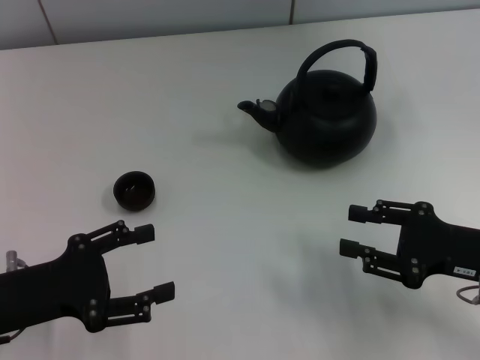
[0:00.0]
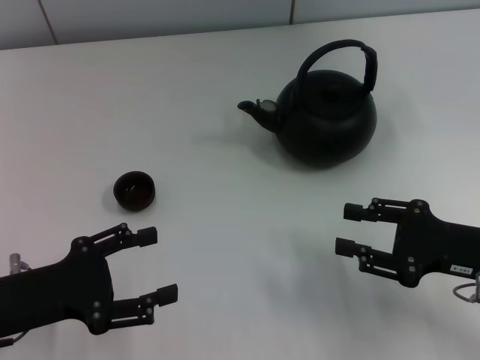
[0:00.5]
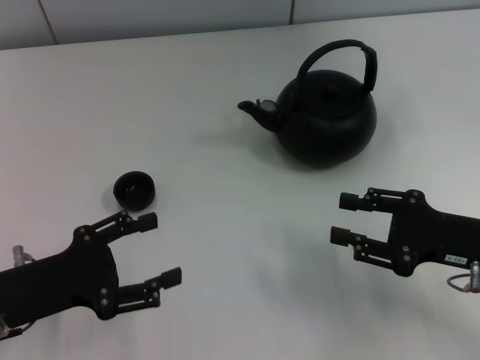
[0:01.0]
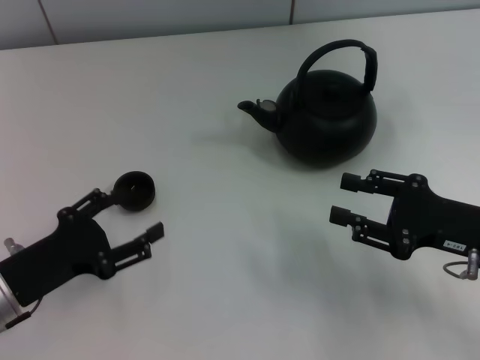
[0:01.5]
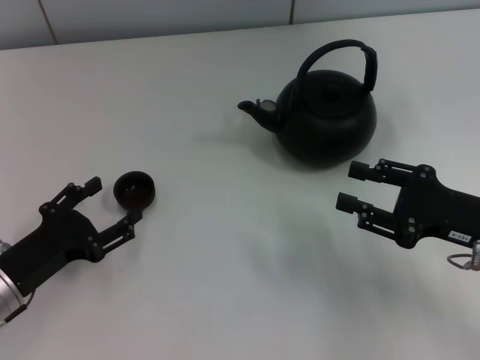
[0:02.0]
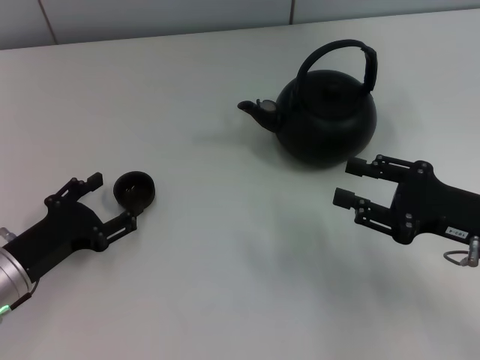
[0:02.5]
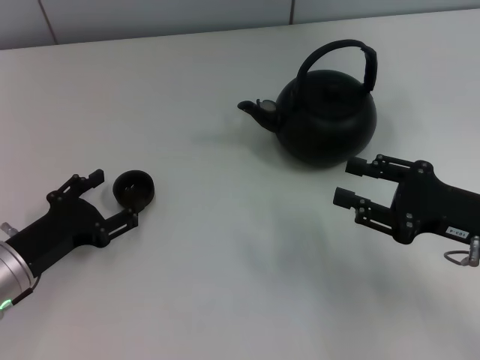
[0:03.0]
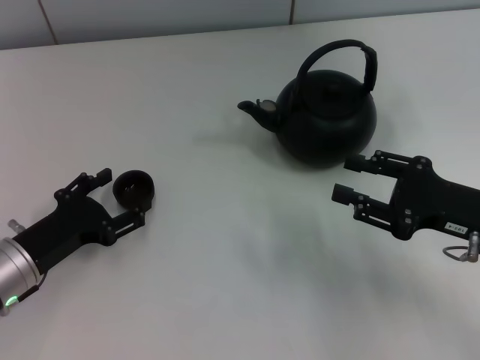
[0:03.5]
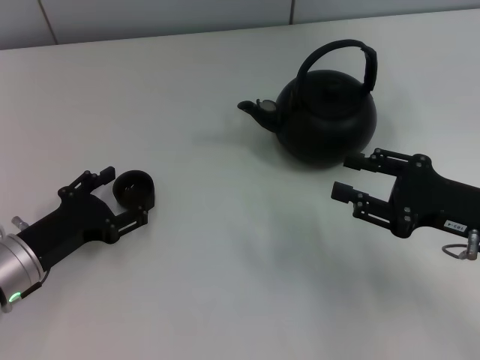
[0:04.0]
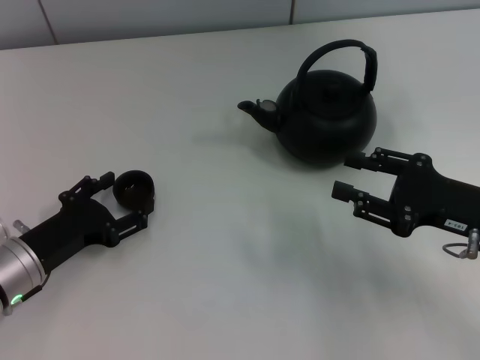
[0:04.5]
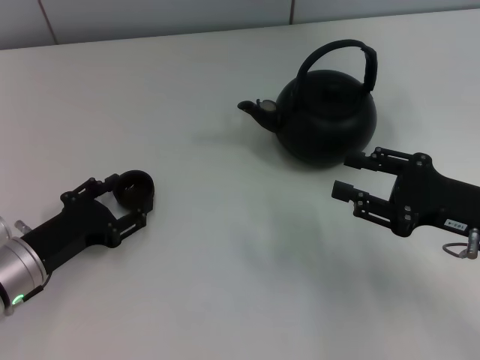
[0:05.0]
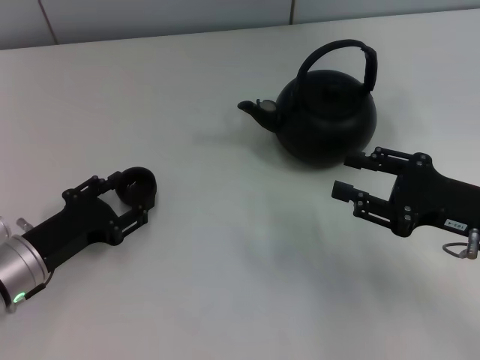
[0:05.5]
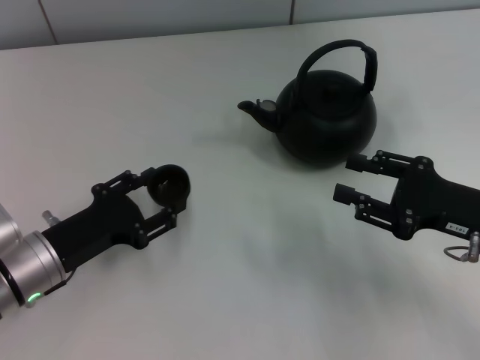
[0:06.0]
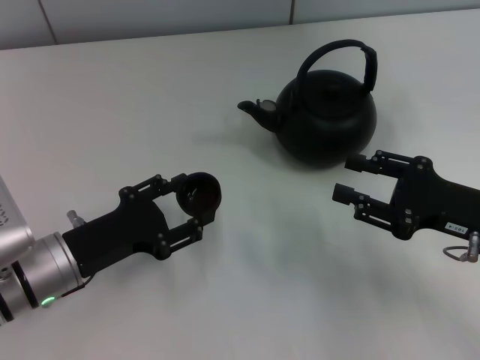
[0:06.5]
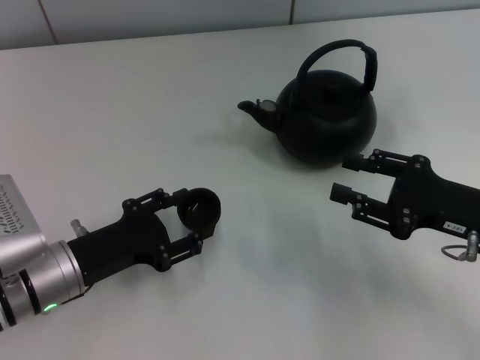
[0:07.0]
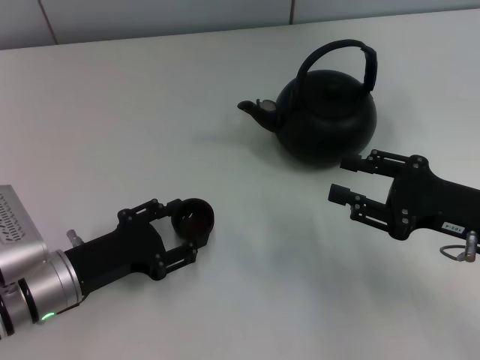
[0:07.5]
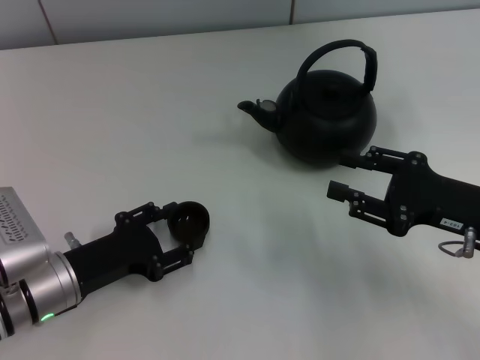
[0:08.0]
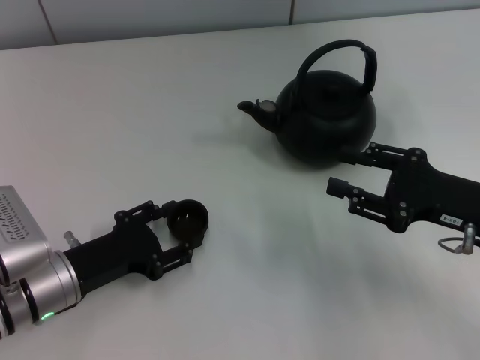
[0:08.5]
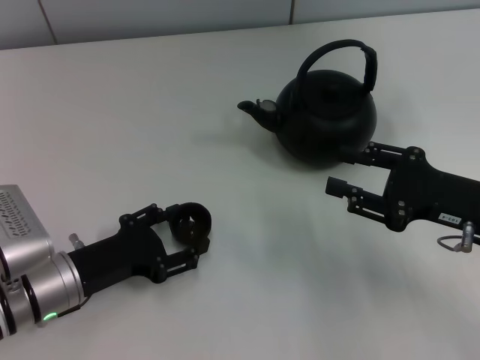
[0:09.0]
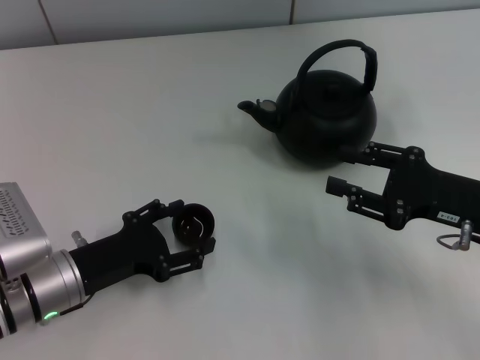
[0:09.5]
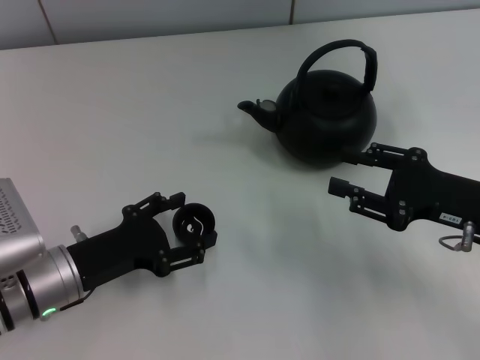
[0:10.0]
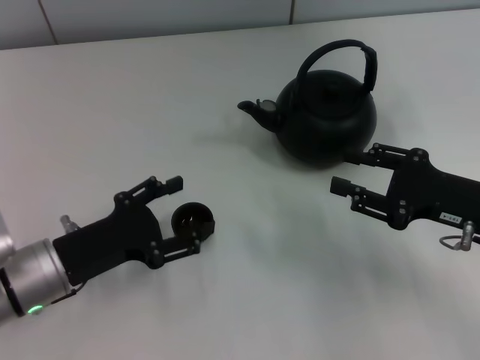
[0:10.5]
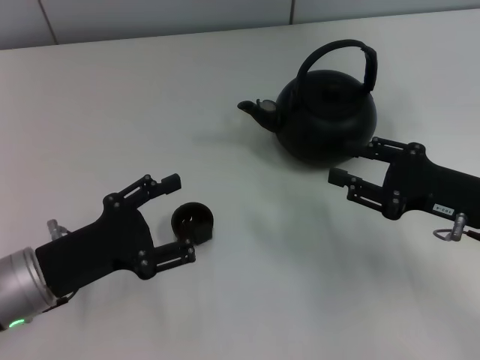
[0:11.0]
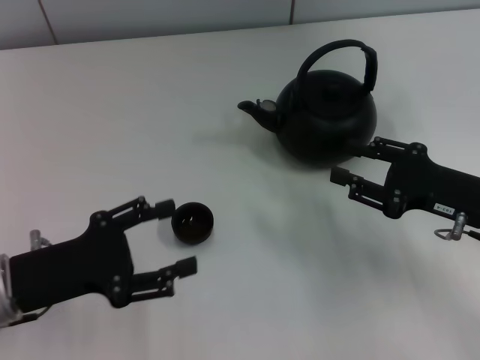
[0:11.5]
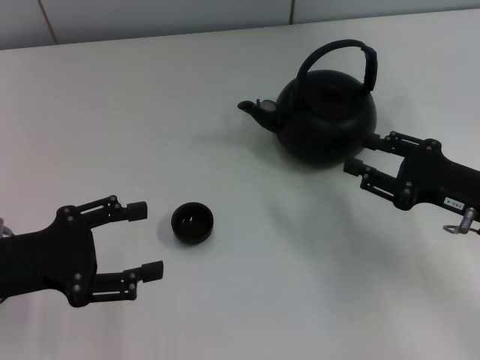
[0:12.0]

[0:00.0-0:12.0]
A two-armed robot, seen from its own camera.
Task of the whole recording: Grasp the handle of the teapot with one hand and pour tea into the teacup.
Step, 0:00.0 to 0:06.0: Pick up the teacup with the left gripper.
Step, 0:06.5 to 0:09.5: Place the teacup in the center of view with the left gripper.
0:00.0 to 0:02.0: The left gripper shifts approximately 5 cm downward.
0:02.0 to 0:04.0: The grippers stay close to where they were, moving slightly.
0:04.0 to 0:06.0: The left gripper closes its fingers.
0:06.0 to 0:08.0: There are only small adjustments of the grippers.
0:08.0 to 0:10.0: The left gripper opens up.
0:10.0 to 0:12.0: The left gripper moves upward and to the left, roughly 10 cm.

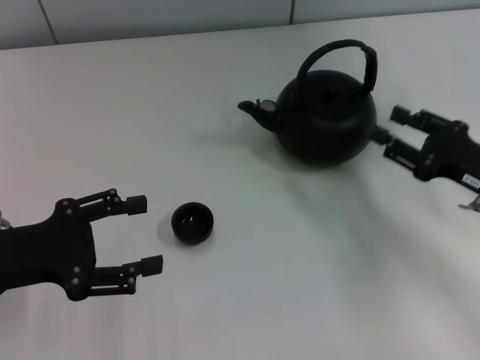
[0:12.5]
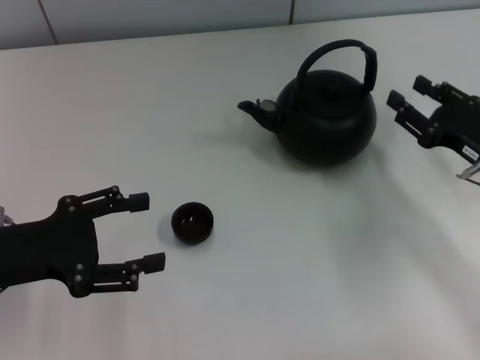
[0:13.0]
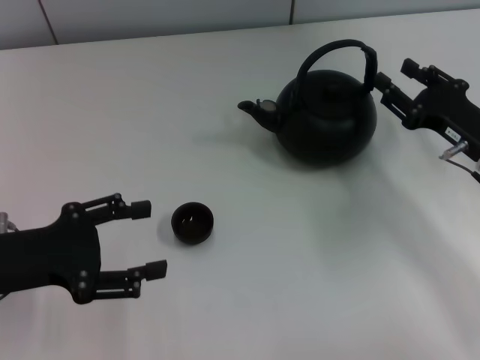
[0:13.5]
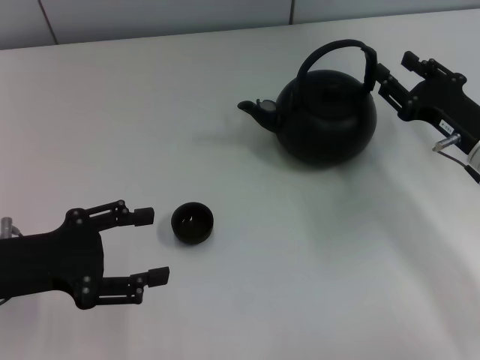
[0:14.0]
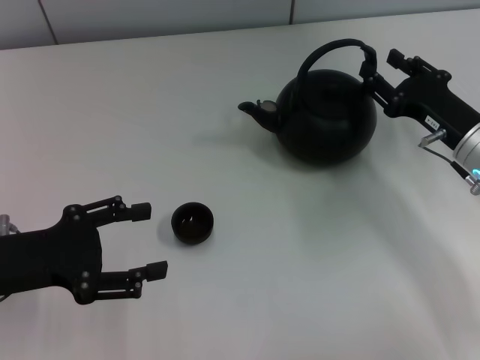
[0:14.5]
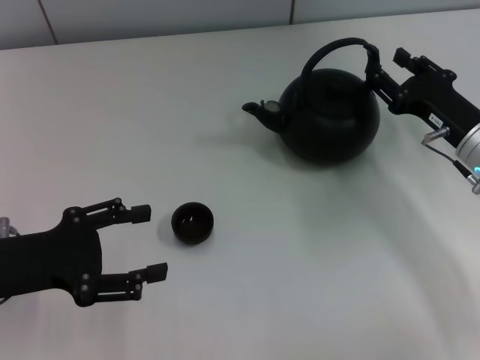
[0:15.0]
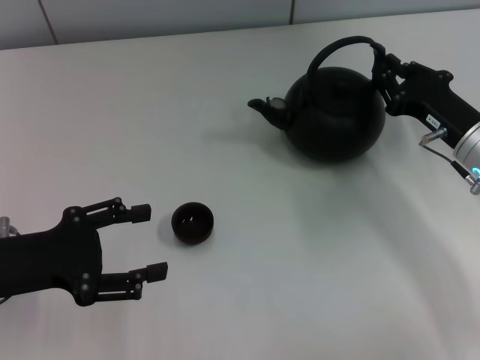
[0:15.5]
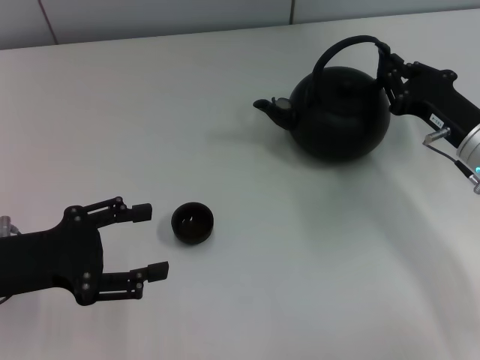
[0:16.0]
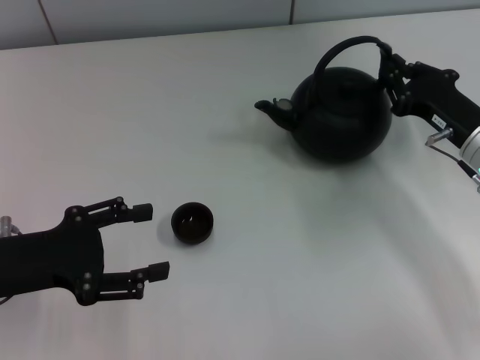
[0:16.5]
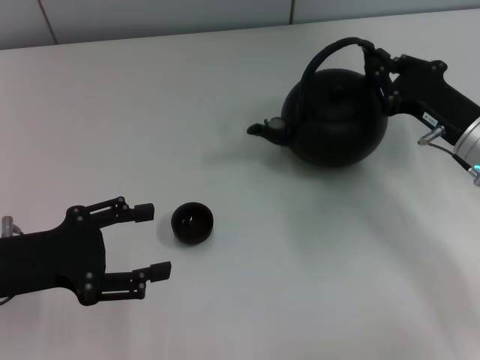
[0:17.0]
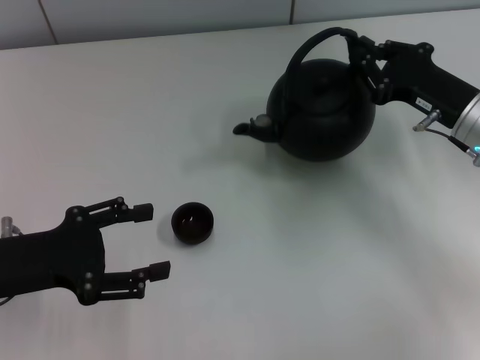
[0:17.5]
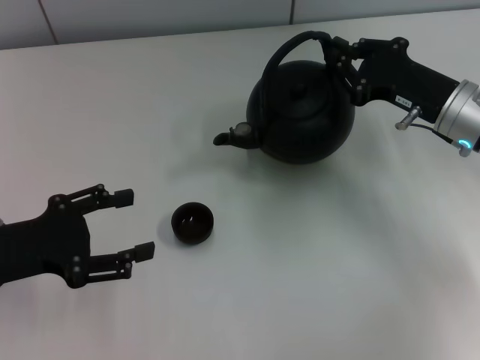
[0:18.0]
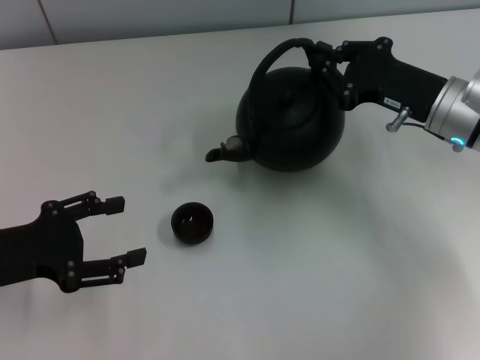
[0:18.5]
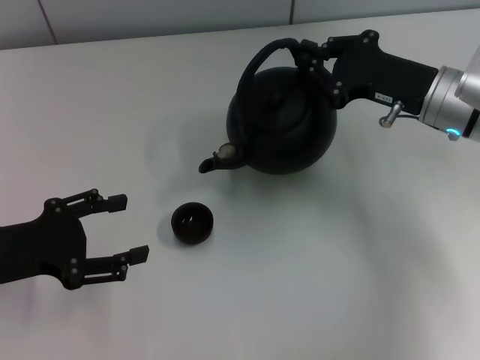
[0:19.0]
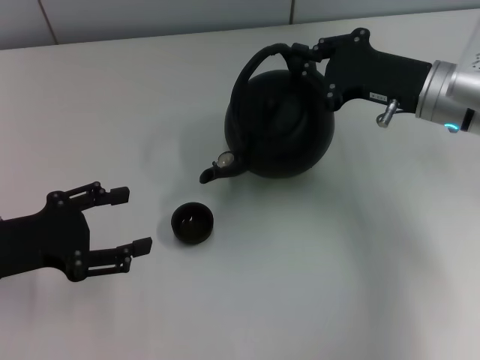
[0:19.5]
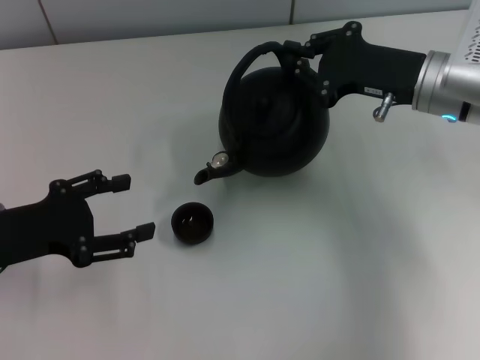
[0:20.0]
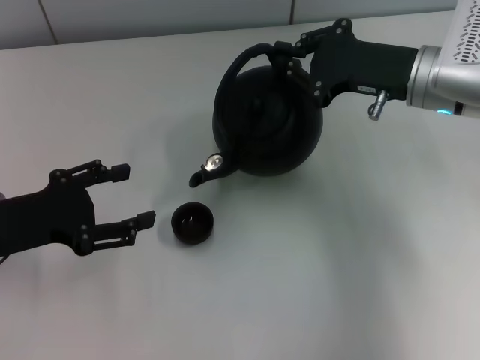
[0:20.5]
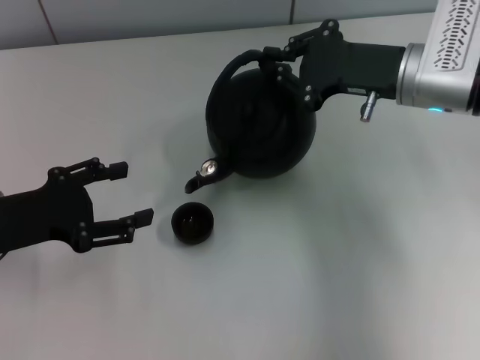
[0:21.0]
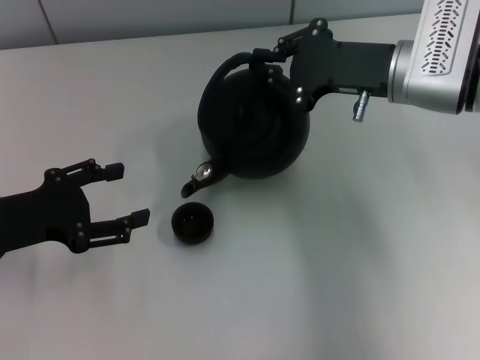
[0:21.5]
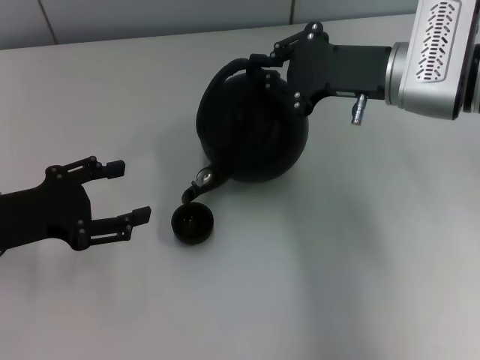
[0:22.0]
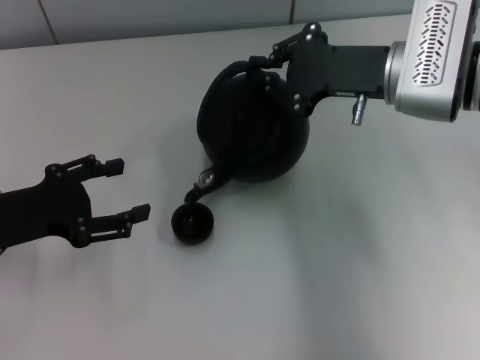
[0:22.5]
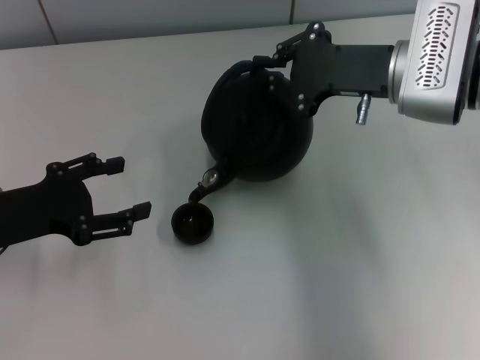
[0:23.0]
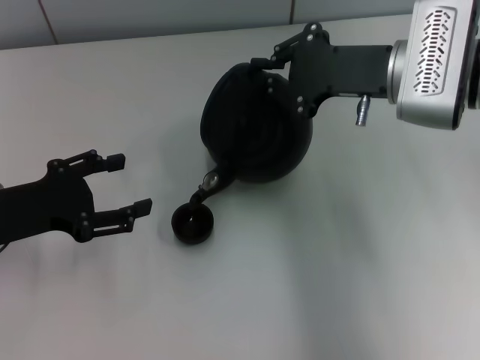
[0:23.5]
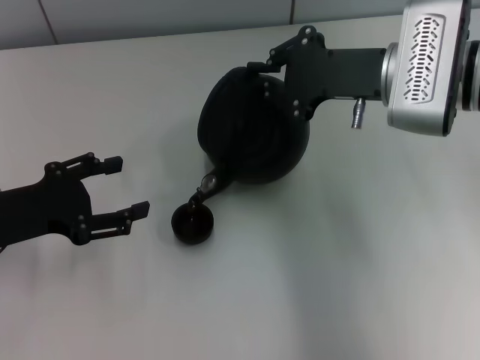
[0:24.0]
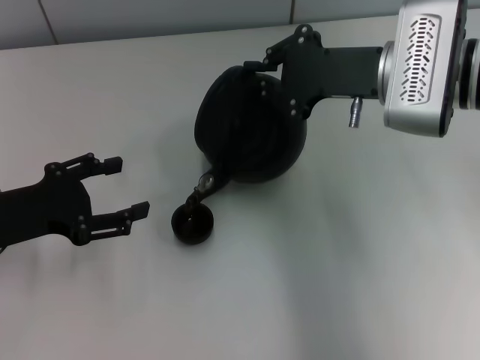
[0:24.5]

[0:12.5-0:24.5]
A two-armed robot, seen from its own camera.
Task of the whole recording: Grasp the handle of the teapot with one hand and pour tea into the teacup.
Step, 0:12.5 to 0:18.5: Pick up the teapot with the right gripper.
0:12.5 to 0:14.5: The right gripper moves forward, some 5 cm.
0:14.5 to 0:16.5: The right gripper closes its fingers.
0:16.5 to 0:18.5: The right gripper ends up about 5 cm from where it was.
0:18.5 to 0:20.5: The right gripper ends up roughly 5 cm from where it was.
0:20.5 to 0:22.5: The grippers stay close to where they were, moving slightly.
0:22.5 to 0:24.5: The grippers make only small movements.

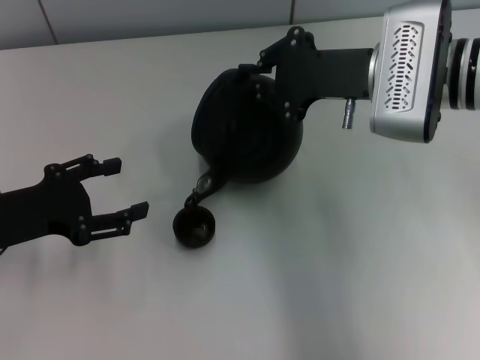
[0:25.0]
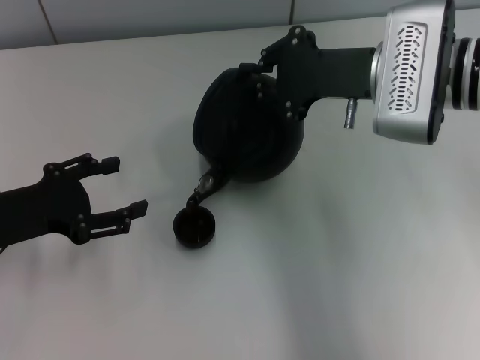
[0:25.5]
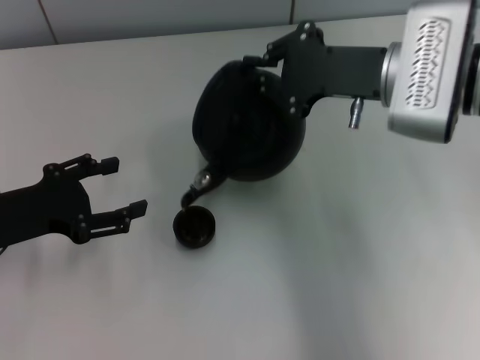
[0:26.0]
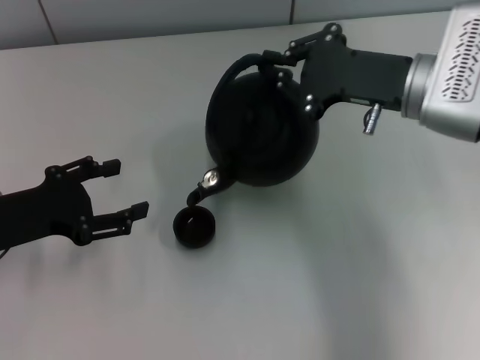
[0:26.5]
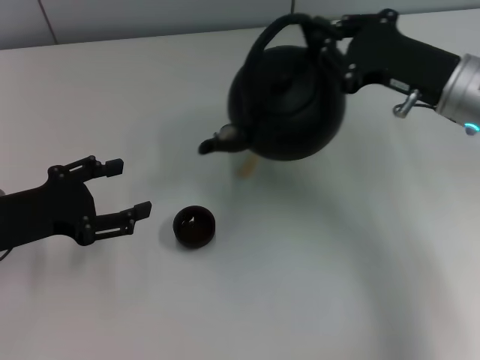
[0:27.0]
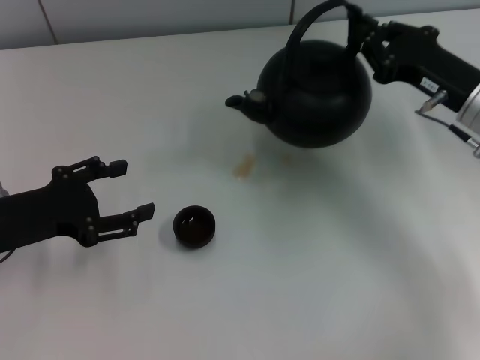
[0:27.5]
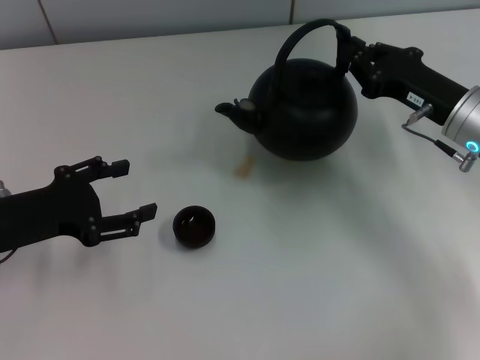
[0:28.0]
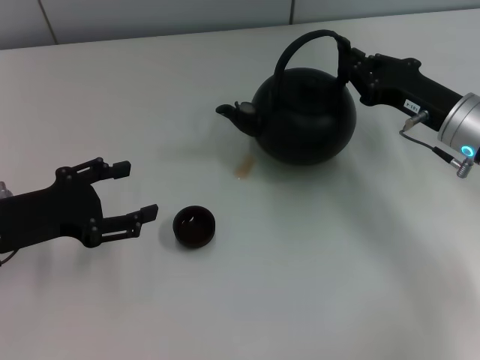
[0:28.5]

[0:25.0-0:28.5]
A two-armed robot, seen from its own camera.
Task of the whole recording: Grasp the handle of the teapot with one hand and pour tea into the teacup.
0:25.0 to 0:27.0: The right gripper goes about 5 cm to the right.
0:27.0 to 0:28.5: The right gripper travels downward by some 5 cm.
